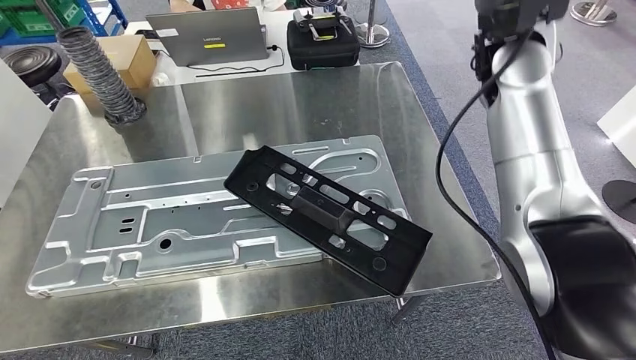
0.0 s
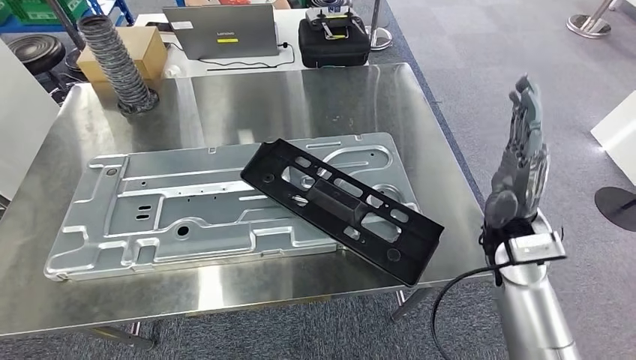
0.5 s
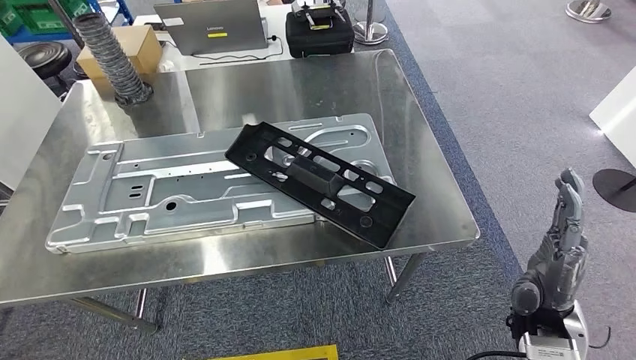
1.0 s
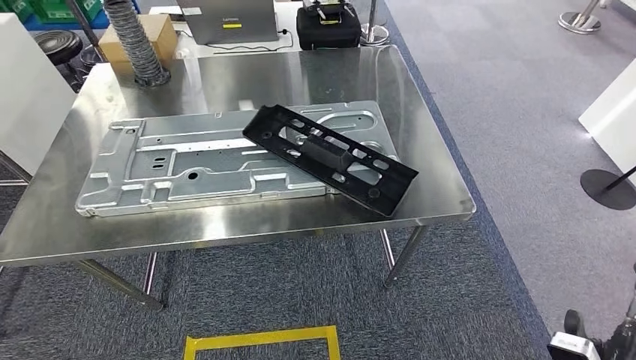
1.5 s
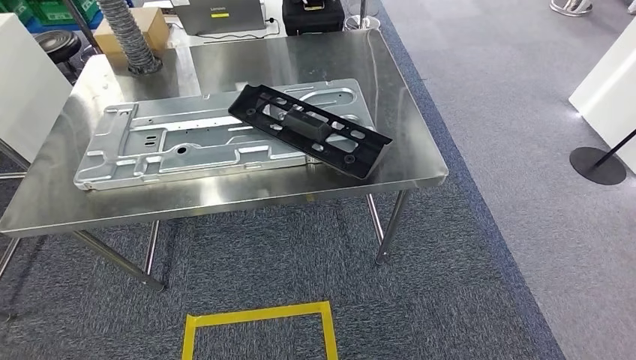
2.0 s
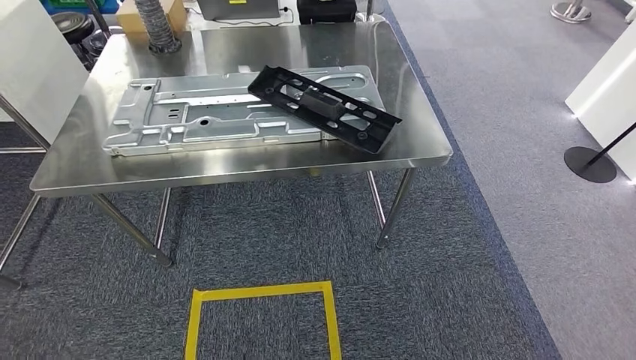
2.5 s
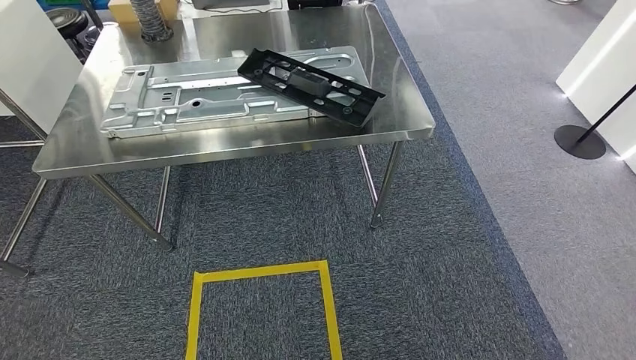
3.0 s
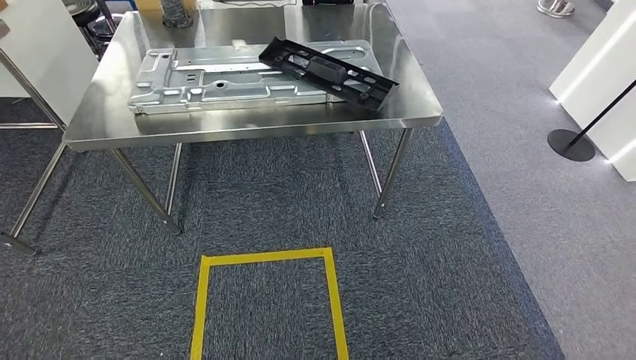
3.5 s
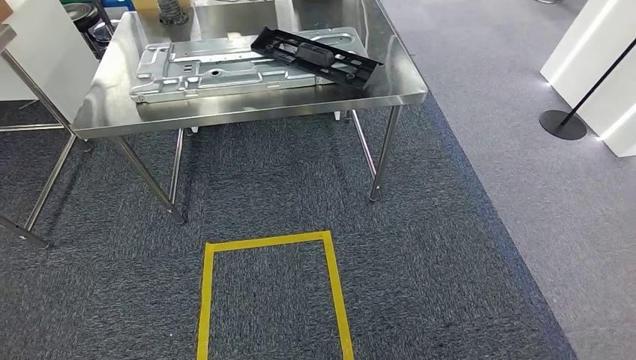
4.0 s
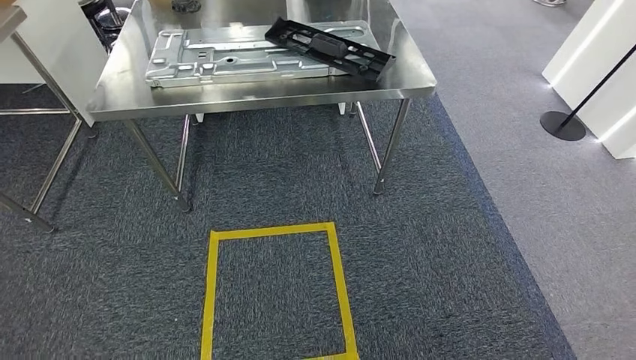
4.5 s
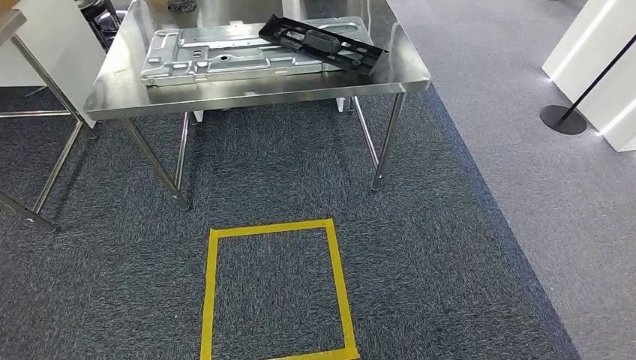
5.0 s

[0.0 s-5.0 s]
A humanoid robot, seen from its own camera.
Step, 2.0 to 5.0 s: Move to the initial position at the workbench.
